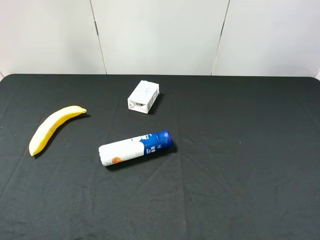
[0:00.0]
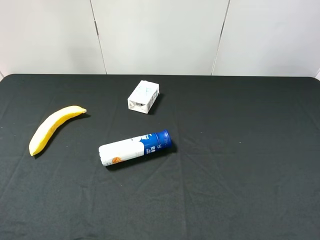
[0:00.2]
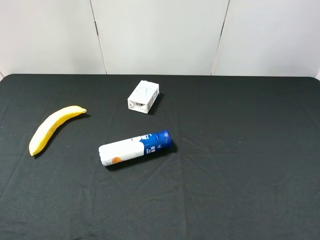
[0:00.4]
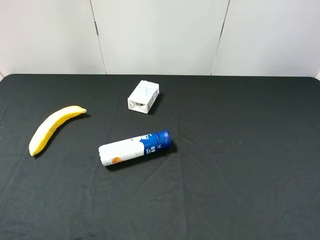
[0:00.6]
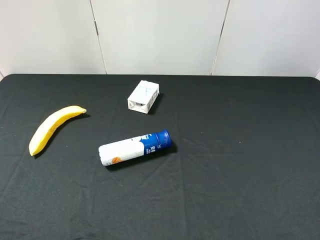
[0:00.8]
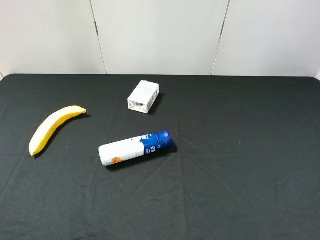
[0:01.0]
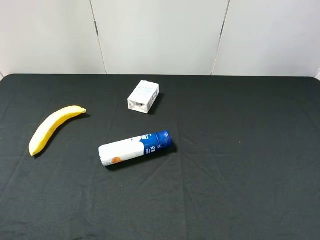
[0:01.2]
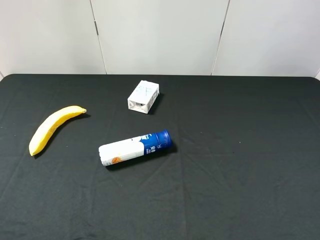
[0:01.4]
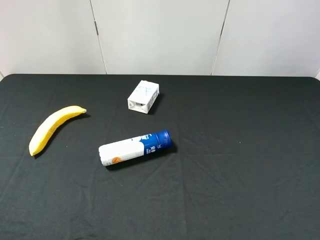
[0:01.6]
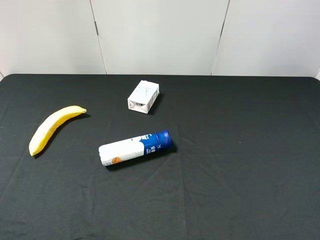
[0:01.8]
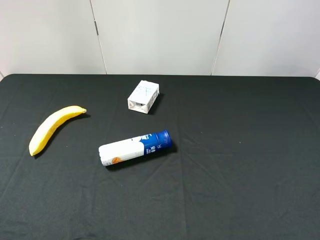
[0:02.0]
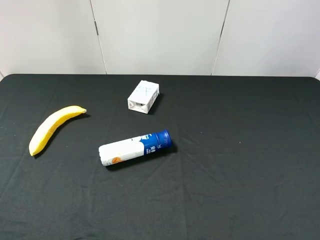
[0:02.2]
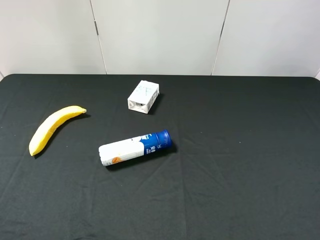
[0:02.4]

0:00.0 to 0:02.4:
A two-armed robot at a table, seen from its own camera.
Task of the whole recording: use the right gripper to pick up the item and transfer it from the right gripper to the left gripper.
0:01.2 to 0:02.4: Both grippers stay about where they are.
